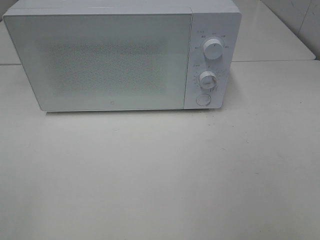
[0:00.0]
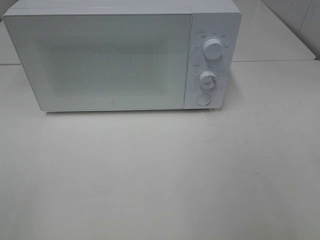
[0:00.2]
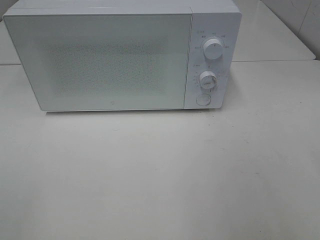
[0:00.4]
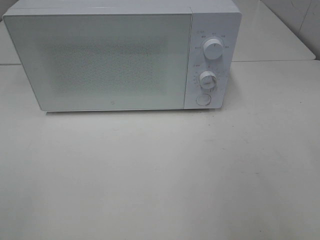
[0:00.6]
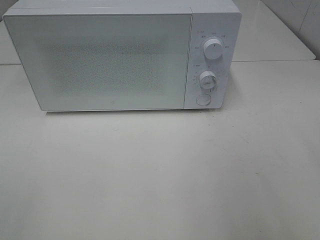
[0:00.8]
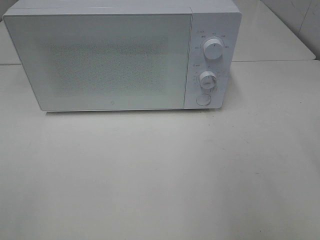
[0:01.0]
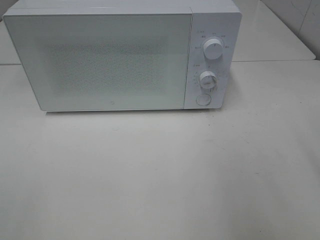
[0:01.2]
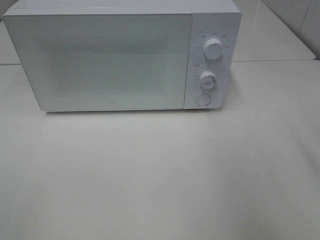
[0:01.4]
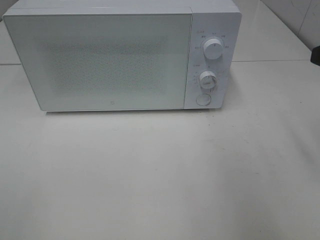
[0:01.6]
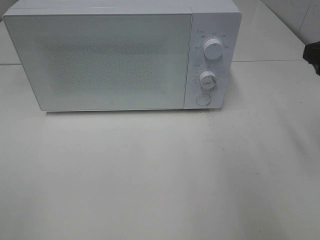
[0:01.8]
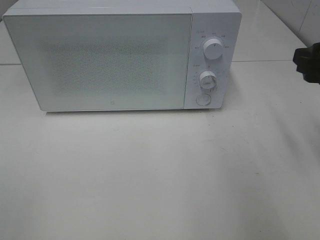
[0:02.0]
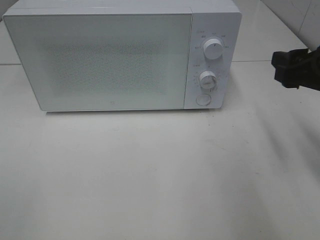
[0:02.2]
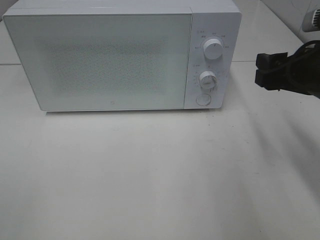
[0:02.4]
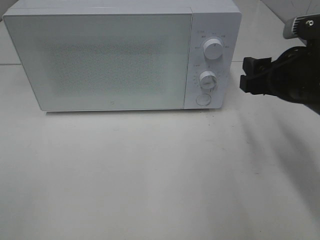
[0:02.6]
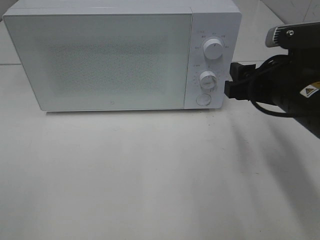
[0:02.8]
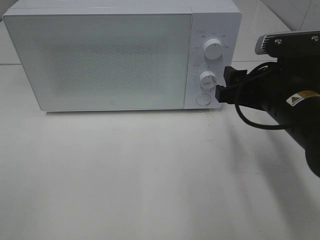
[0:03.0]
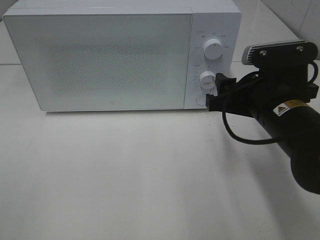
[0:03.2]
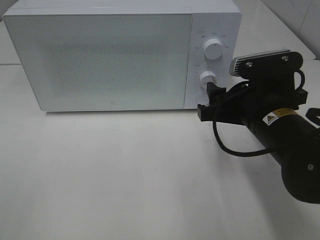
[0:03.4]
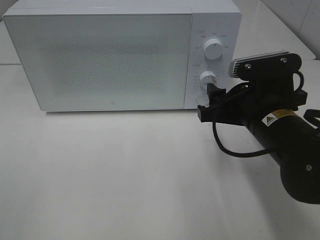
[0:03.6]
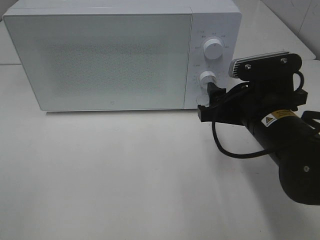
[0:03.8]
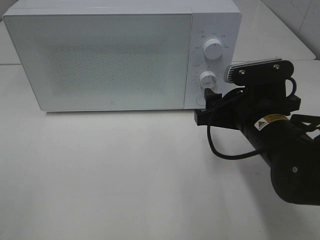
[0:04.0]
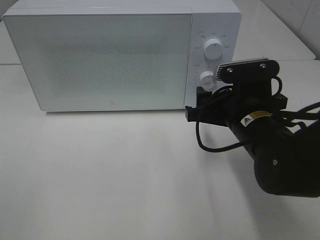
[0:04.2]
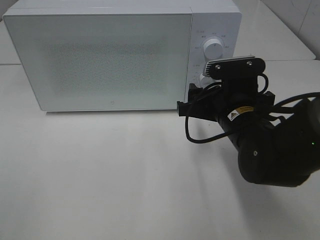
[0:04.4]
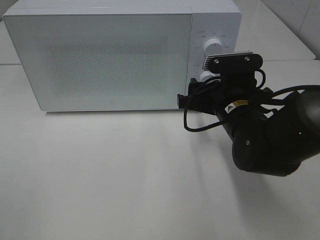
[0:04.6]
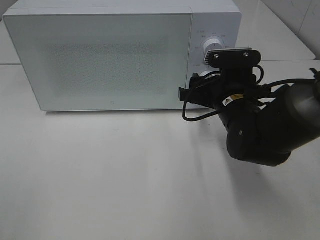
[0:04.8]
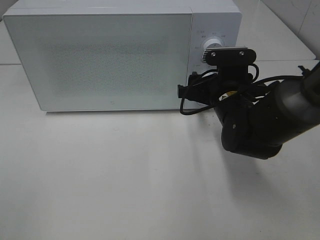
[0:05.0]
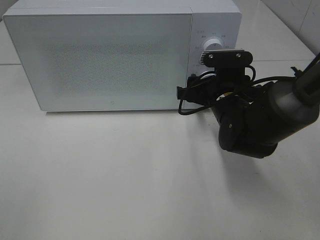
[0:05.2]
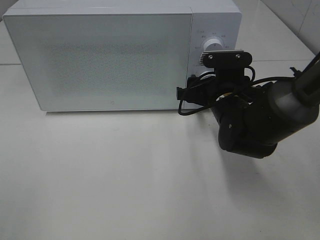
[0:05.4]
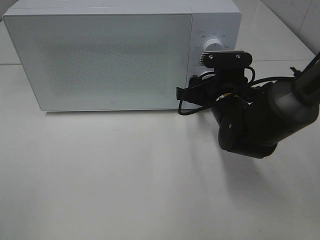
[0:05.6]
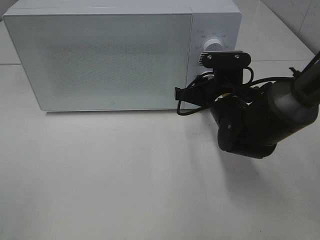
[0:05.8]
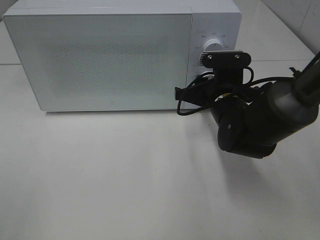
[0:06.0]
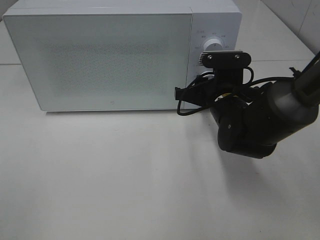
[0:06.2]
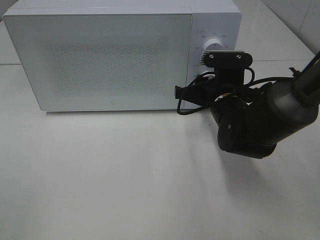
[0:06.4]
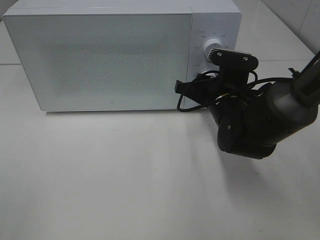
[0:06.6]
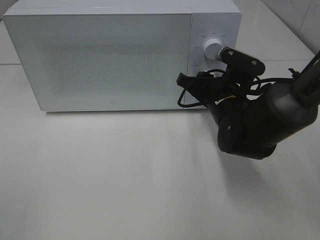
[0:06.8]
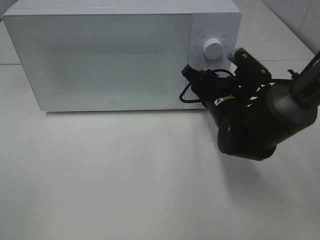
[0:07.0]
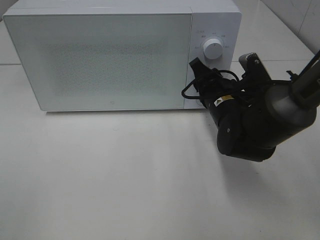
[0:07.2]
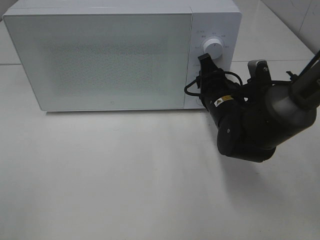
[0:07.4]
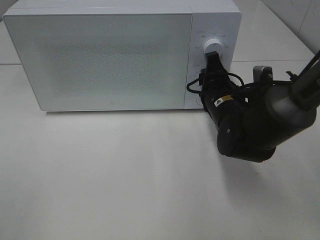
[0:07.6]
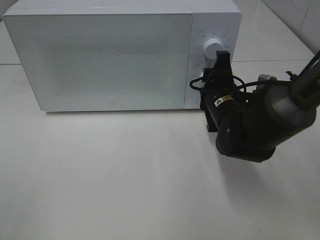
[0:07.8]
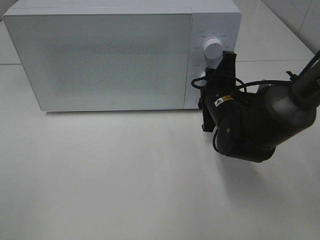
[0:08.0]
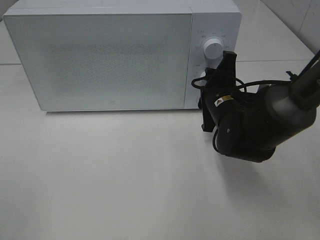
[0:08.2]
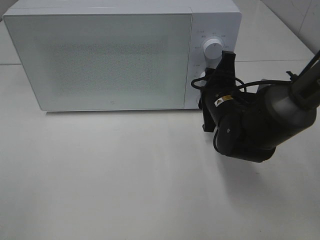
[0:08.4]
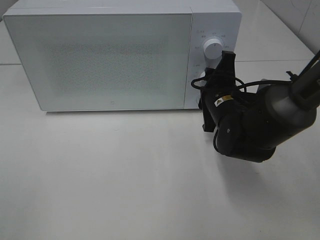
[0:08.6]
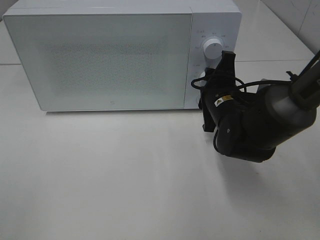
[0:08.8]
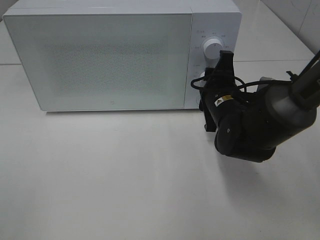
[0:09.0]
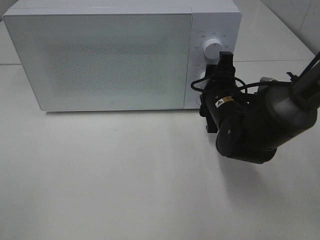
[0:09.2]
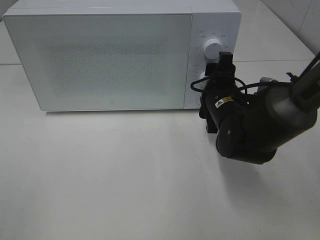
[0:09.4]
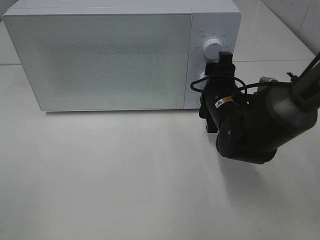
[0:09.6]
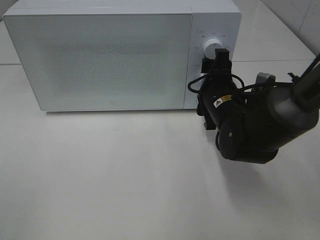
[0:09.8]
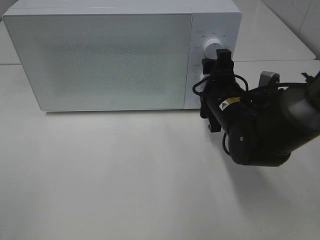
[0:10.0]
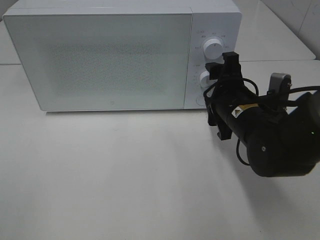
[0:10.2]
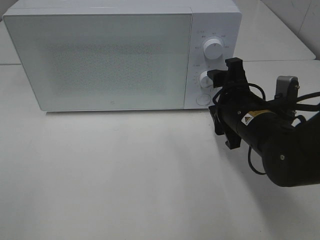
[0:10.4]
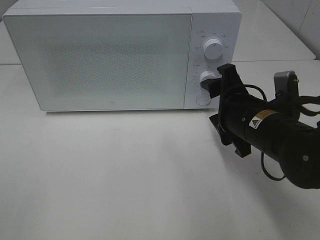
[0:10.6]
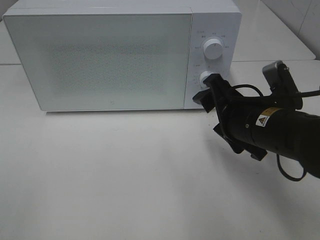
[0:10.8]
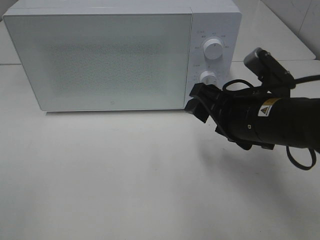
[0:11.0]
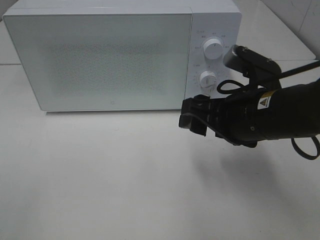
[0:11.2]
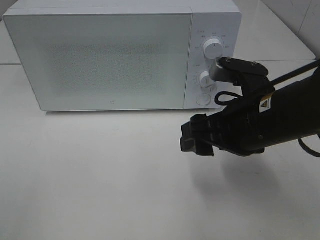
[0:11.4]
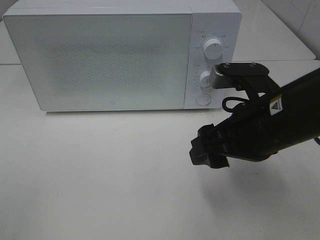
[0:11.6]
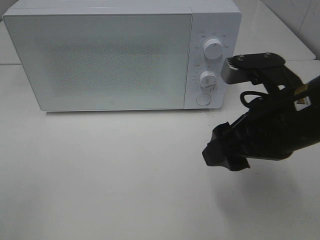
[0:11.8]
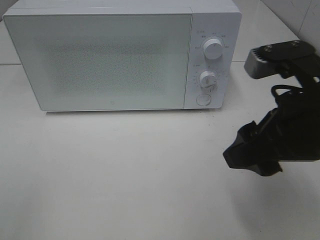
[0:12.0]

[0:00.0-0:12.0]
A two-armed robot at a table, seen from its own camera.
Task of the whole recording: Heat Sandwich.
Step, 0:00.0 to 0:10.2: Right hand: twist timer button.
0:01.6 to 0:03.0: The right gripper goes roughly 15 cm to the left and downward.
0:03.0 to 0:04.4: The right gripper shifts by roughly 10 cm.
0:04.4 to 0:06.0: The right gripper goes roughly 5 cm forward, and closes up.
0:09.0 to 0:10.4: The right gripper heads backward, covering approximately 5 cm.
0:10.4 to 0:12.0: The right gripper moves upward and backward, approximately 15 cm.

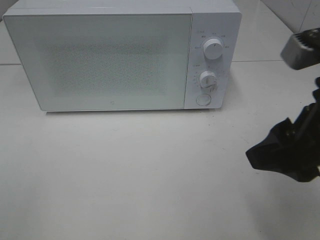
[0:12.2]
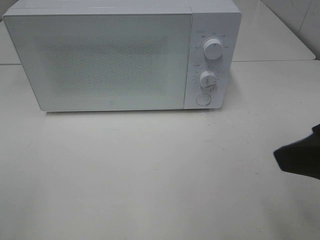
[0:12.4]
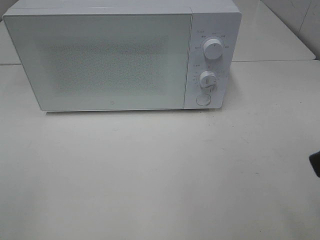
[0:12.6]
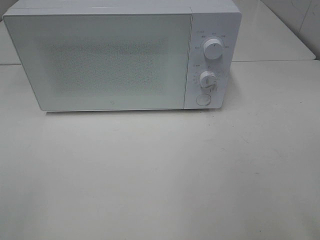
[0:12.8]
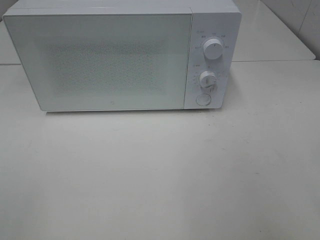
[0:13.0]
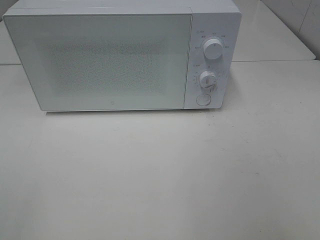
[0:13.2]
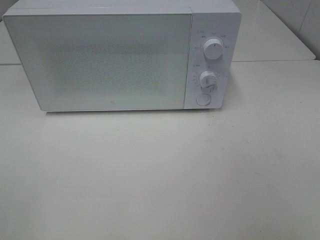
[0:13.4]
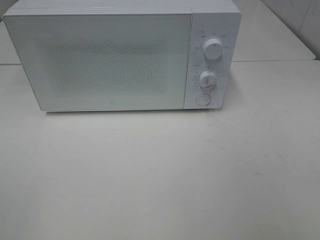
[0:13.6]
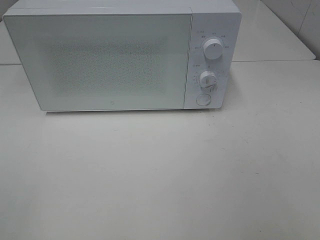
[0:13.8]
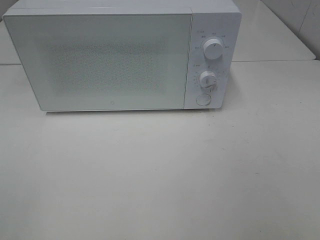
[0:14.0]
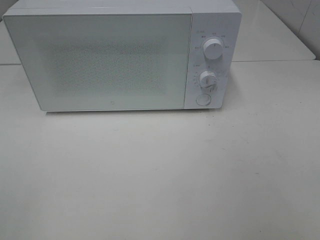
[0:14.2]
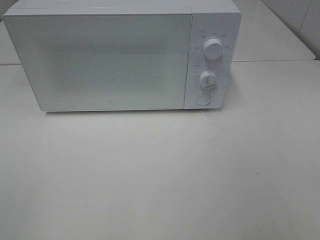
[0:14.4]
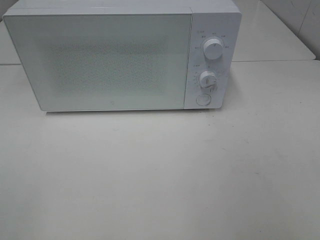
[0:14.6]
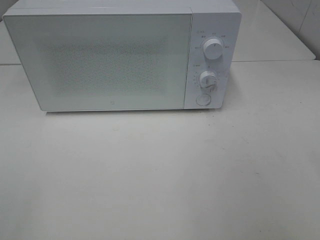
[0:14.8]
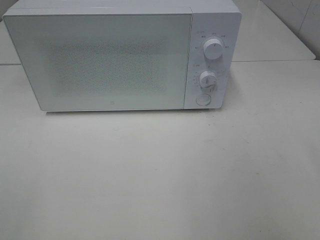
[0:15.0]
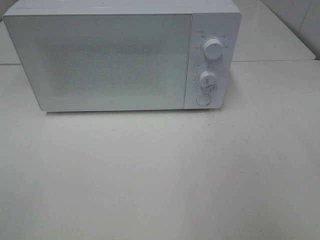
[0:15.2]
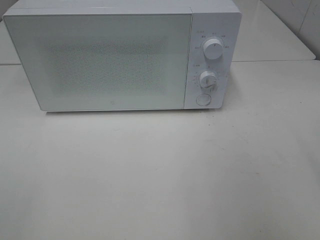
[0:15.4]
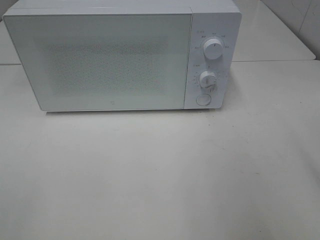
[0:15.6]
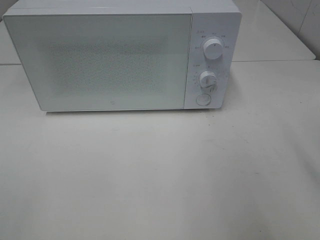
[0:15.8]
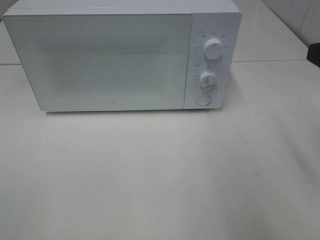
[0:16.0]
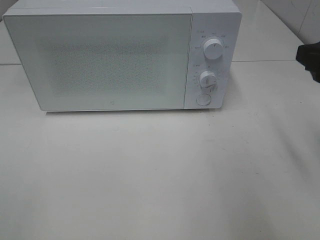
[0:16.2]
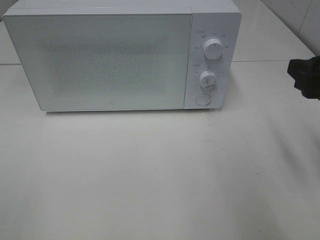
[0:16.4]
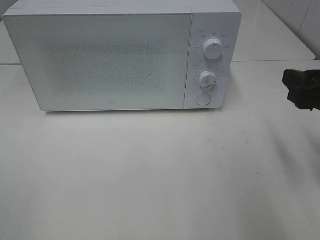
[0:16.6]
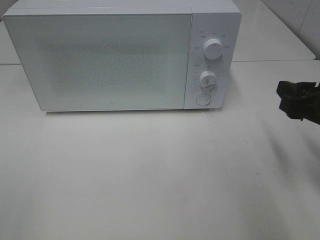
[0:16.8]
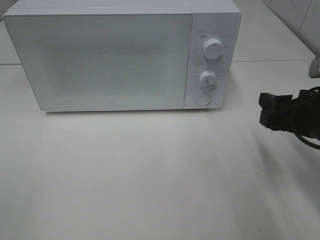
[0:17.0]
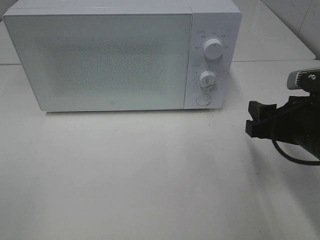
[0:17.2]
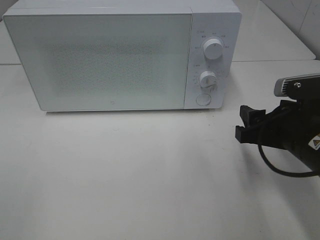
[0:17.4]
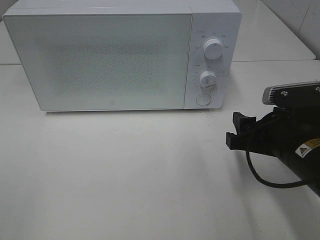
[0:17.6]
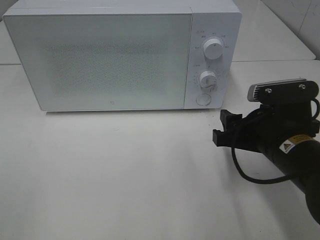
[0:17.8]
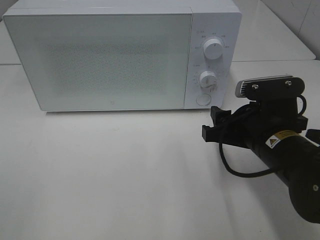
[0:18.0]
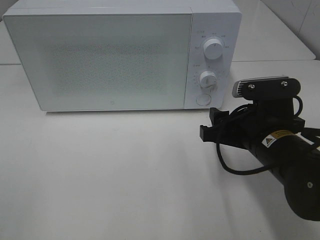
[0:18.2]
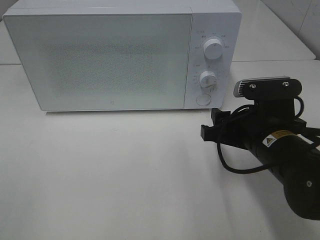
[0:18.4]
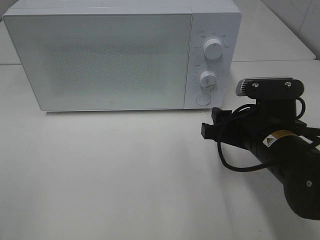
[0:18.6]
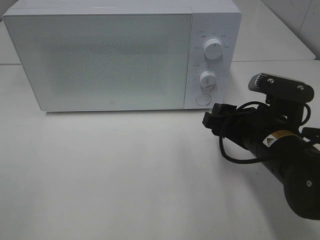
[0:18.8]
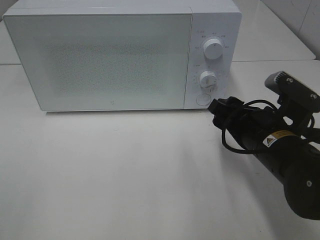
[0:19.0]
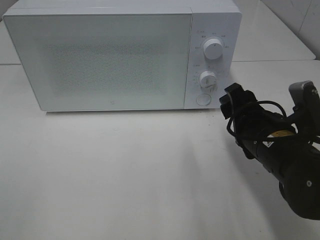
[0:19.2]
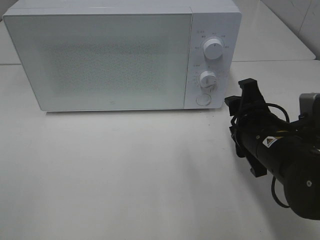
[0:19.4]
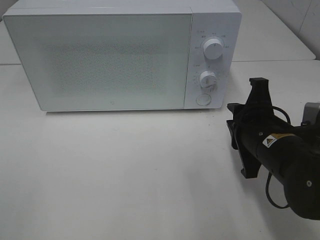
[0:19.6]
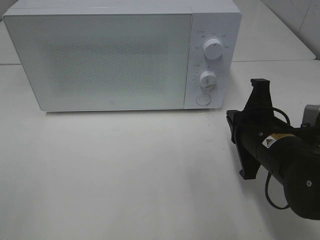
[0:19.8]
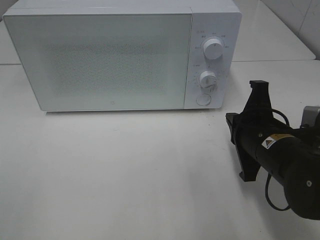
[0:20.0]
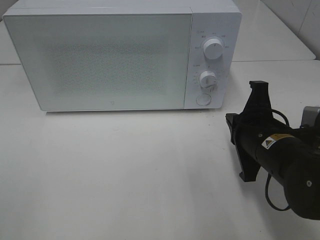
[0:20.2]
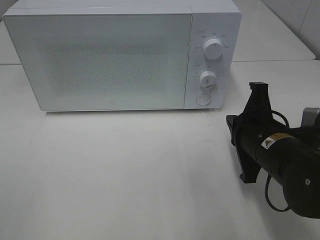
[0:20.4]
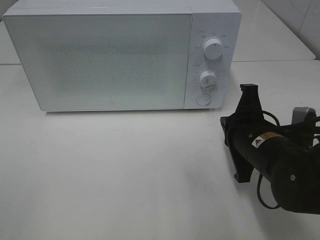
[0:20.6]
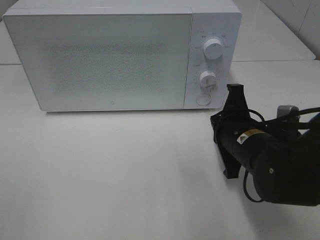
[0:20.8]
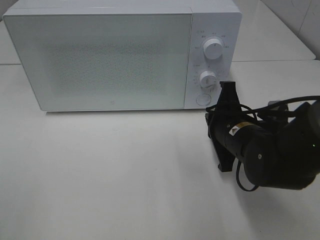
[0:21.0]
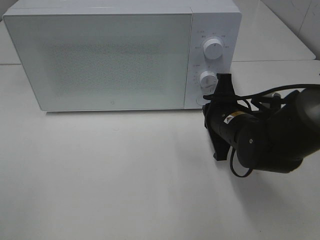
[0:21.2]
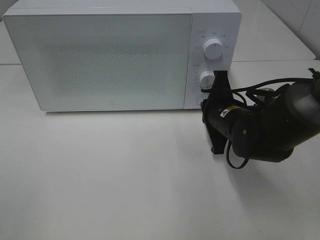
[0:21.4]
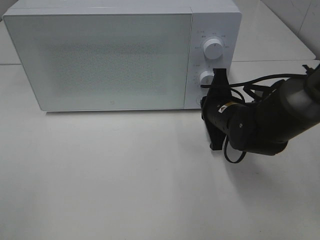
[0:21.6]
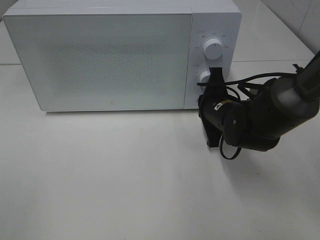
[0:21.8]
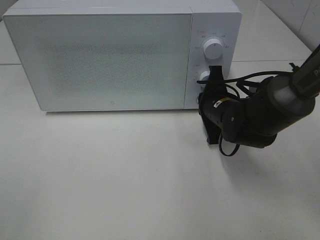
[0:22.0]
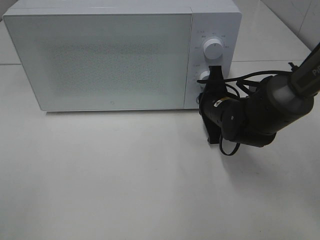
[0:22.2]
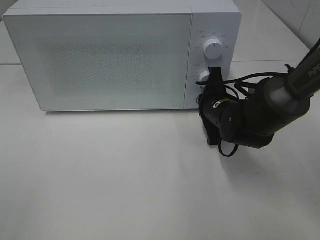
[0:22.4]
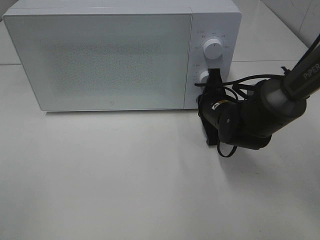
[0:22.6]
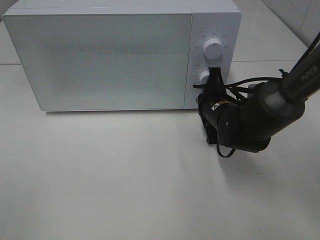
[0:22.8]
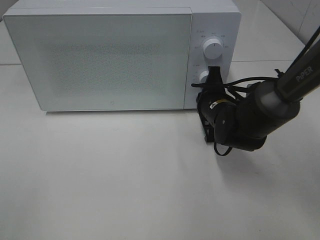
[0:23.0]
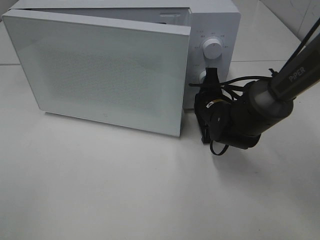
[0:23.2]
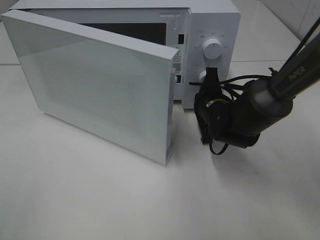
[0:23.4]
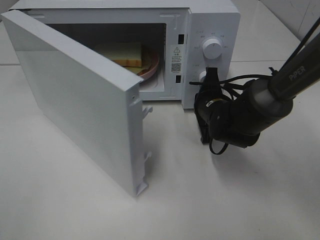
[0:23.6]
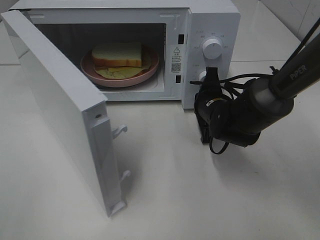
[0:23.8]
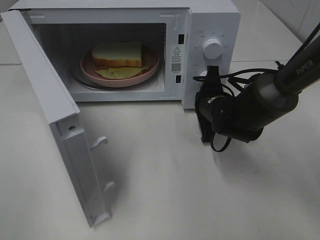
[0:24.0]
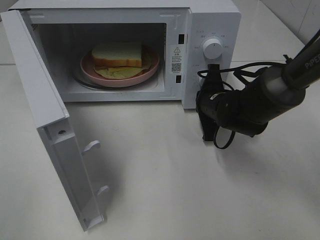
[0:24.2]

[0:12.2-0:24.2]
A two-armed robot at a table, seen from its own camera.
Task of the whole recording: Heat Sandwich.
0:12.2 to 0:13.8: The right gripper shifts approximately 15 cm backward and to the right.
0:15.2 to 0:16.6: The right gripper goes about 15 cm forward and downward.
0:16.6 to 0:18.2: The right gripper travels to the left and downward by roughly 15 cm.
0:18.2 to 0:19.8: The right gripper closes.
0:19.8 to 0:21.2: The right gripper goes some 5 cm forward.
0:21.2 to 0:22.6: The right gripper heads forward, covering about 5 cm.
